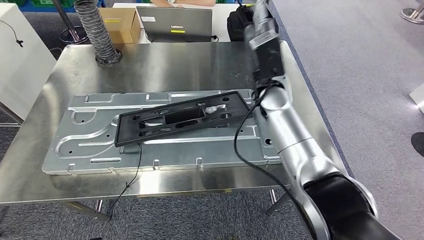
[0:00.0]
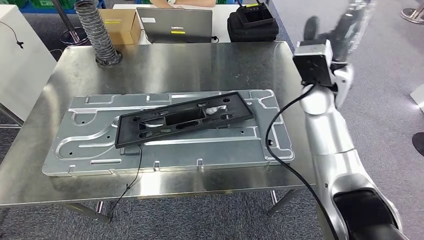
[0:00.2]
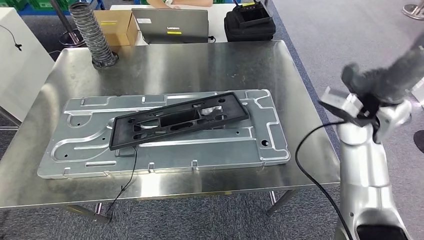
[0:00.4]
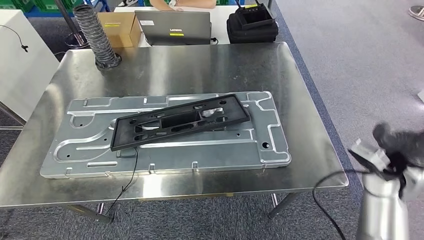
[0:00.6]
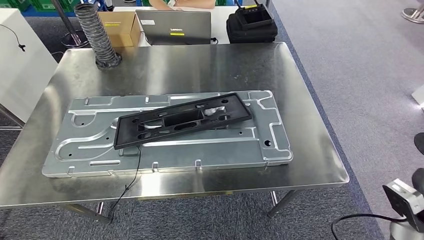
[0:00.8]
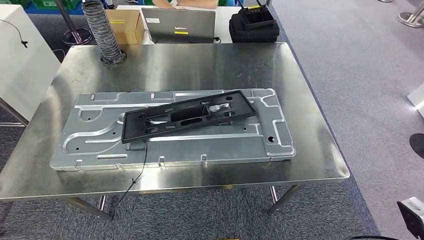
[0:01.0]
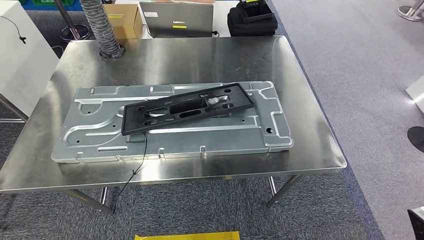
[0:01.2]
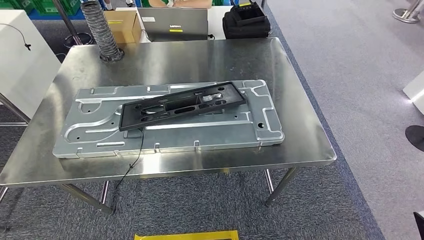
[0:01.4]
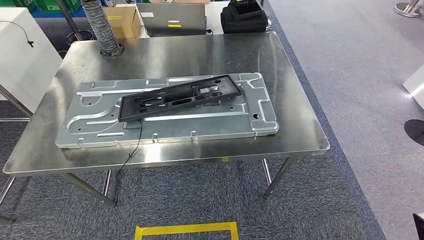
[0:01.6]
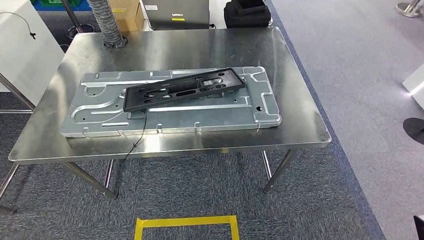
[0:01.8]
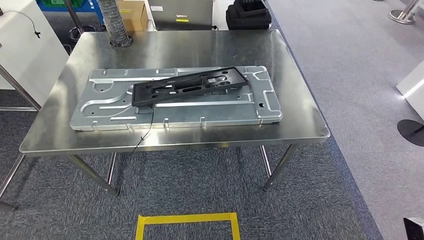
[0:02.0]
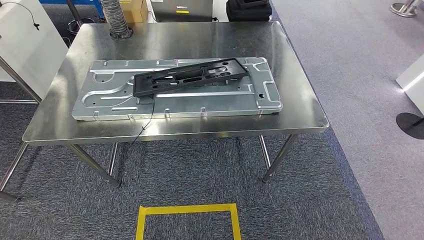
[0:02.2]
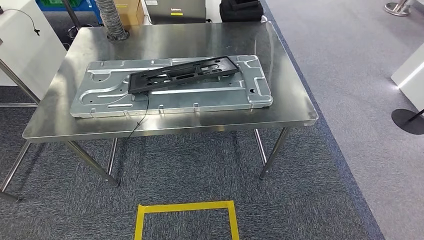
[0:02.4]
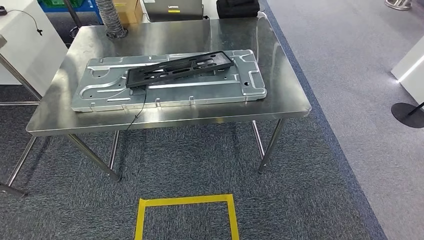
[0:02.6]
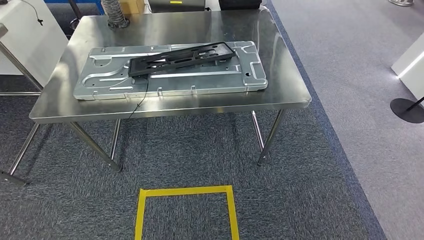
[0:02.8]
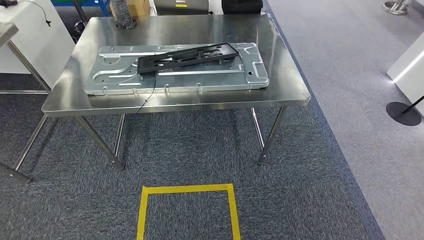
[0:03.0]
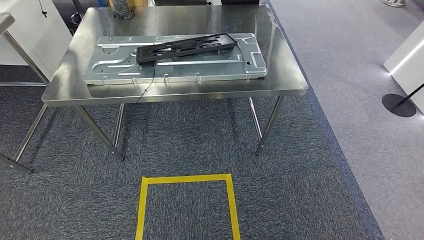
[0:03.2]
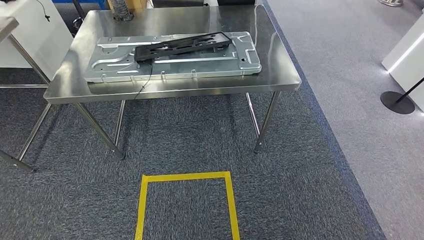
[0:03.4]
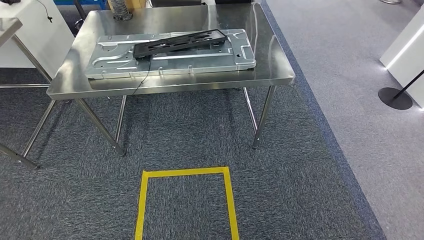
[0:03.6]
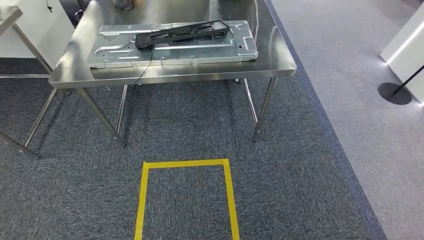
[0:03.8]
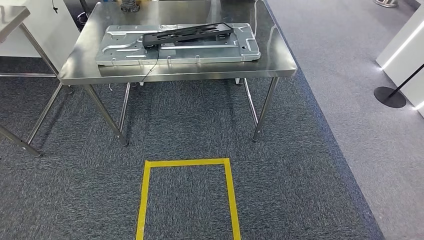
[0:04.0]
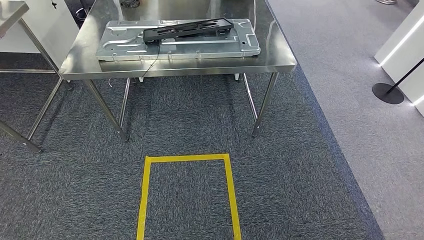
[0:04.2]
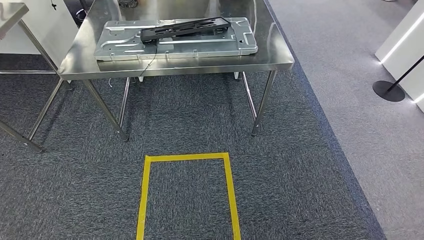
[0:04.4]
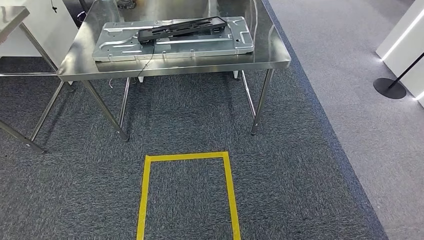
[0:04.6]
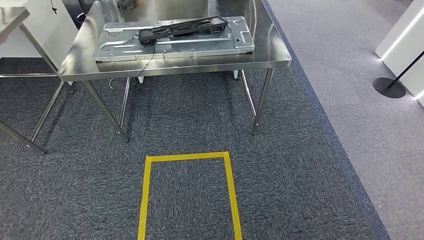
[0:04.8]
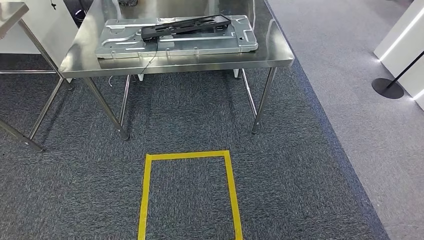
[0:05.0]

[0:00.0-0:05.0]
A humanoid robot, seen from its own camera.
Step, 0:01.2 to 0:05.0: Move to the initial position of the shelf.
